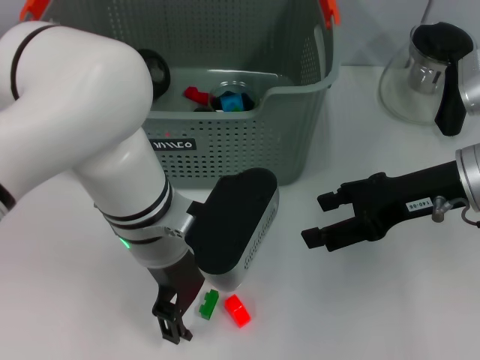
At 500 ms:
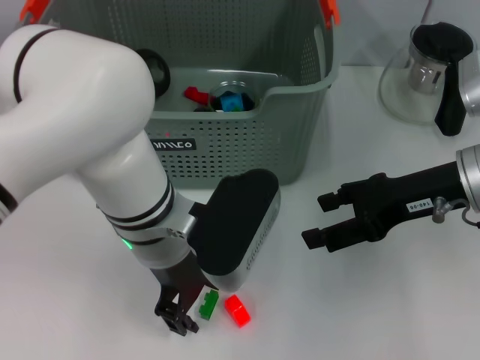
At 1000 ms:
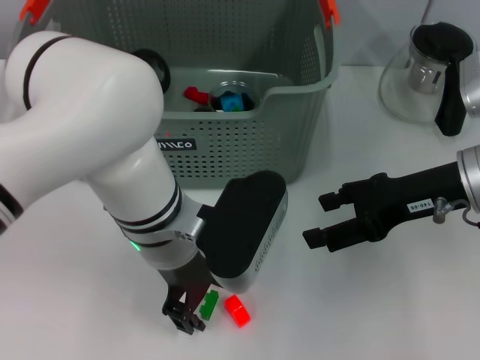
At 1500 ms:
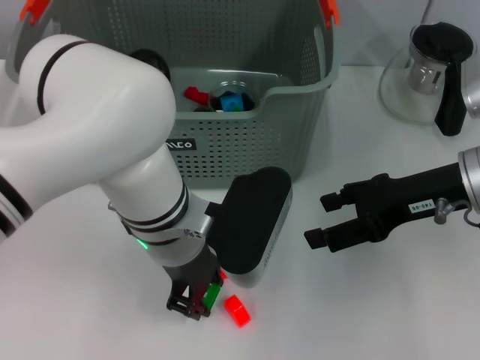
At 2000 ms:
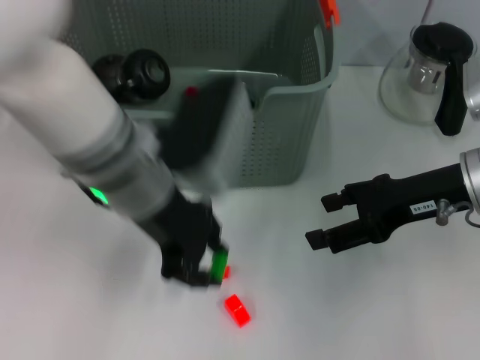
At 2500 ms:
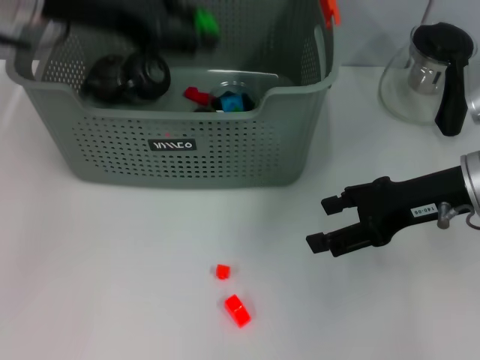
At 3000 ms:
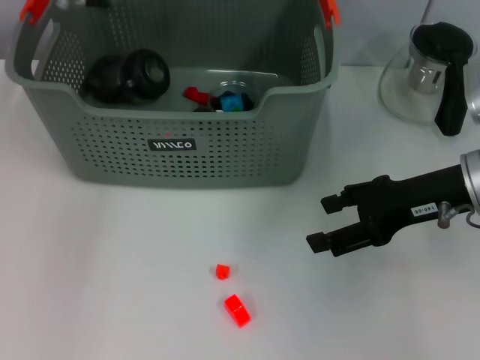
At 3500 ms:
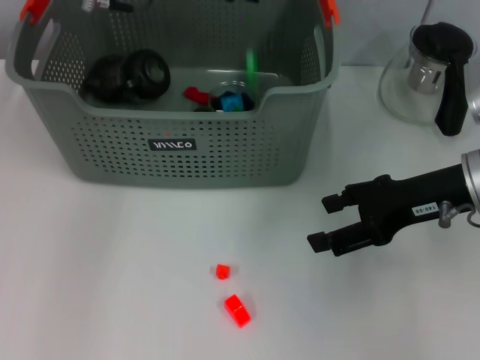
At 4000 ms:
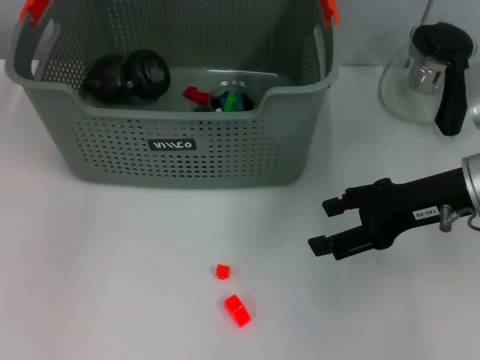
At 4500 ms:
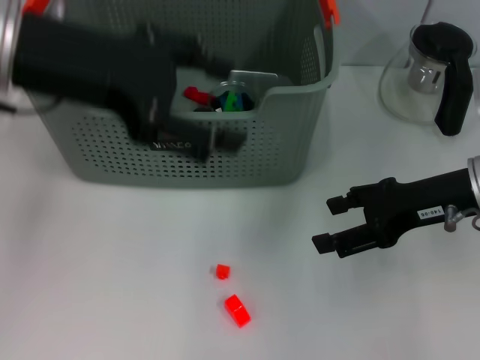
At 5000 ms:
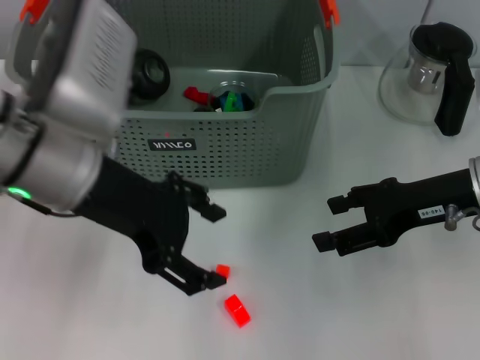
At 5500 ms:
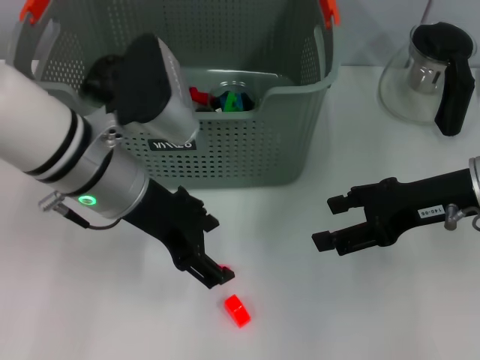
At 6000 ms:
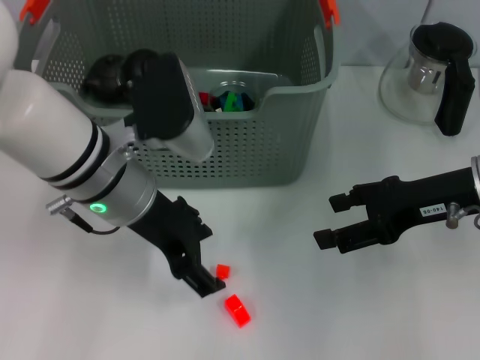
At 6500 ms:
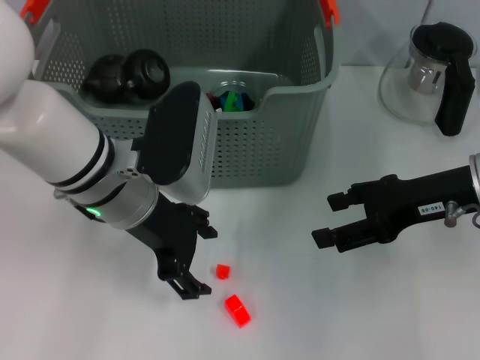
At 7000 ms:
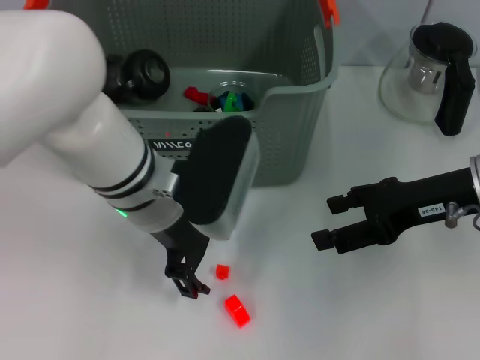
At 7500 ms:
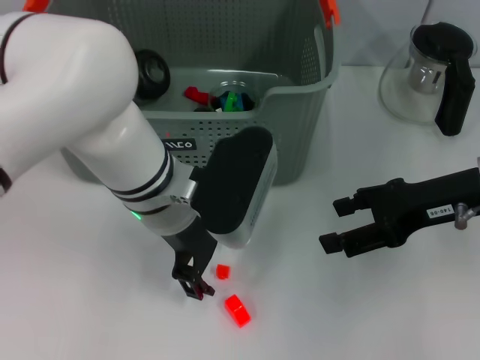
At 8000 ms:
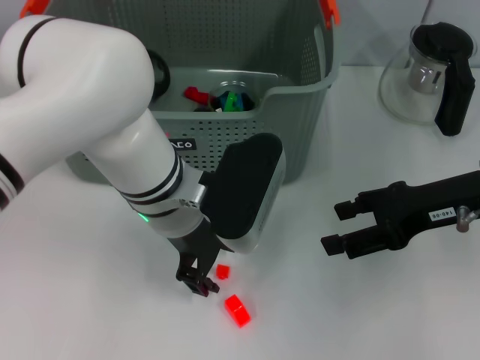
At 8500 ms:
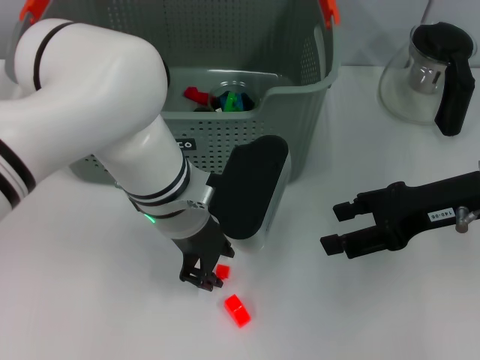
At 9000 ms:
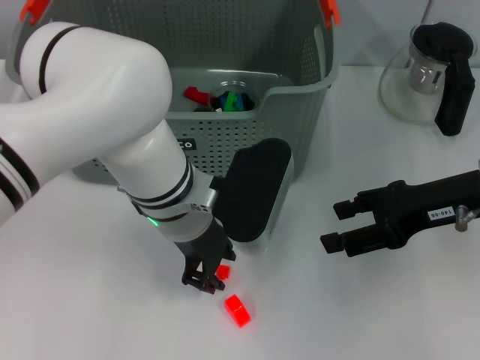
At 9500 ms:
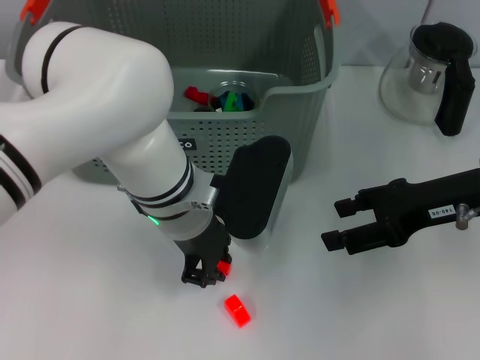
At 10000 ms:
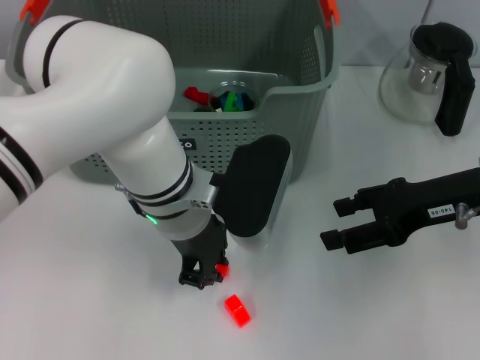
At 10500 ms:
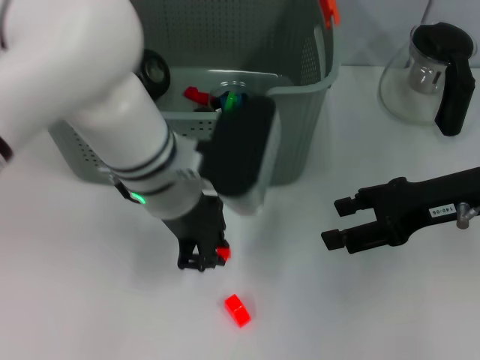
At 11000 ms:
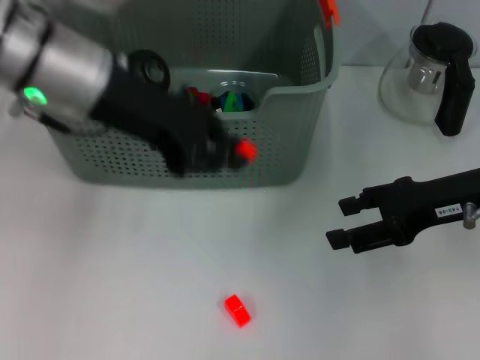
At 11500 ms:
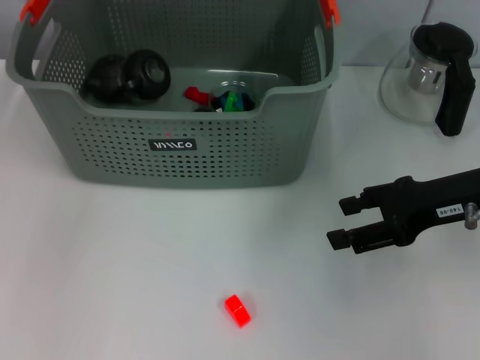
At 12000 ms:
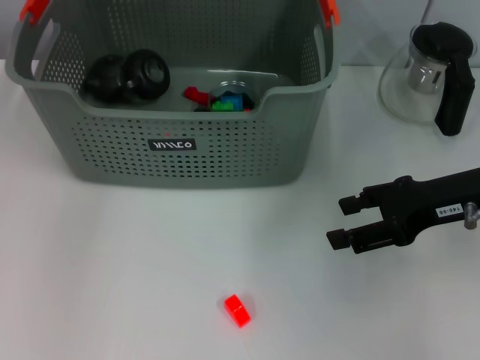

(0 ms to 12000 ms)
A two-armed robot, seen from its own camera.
Task of the whole recording: pick up the teacup on the table and place it into the storage bin, pick up the block on the table and place it into the storage bin.
Step, 2000 ms - 3500 ms: Place the green block in the storage box with left gripper.
Step, 4000 ms - 10000 ms: Grasp the orange block with left gripper.
Step, 10500 ms - 12000 ms: Place the orange block in the storage box with left gripper.
0 ms - 2000 ms: The left gripper goes approximately 5 cm upward, and closes its fingers.
2000 ms - 4000 ms: The left gripper goes approximately 15 cm upward, forward and to the left, and opens up.
4000 ms - 6000 ms: The left gripper shifts some 20 cm downward and backward.
6000 ms - 8000 ms: The left gripper shifts roughly 5 cm to the right.
8000 ms - 10000 ms: The left gripper closes.
10000 ms - 12000 ms: The left gripper travels upward, forward and to the left by approximately 25 cm.

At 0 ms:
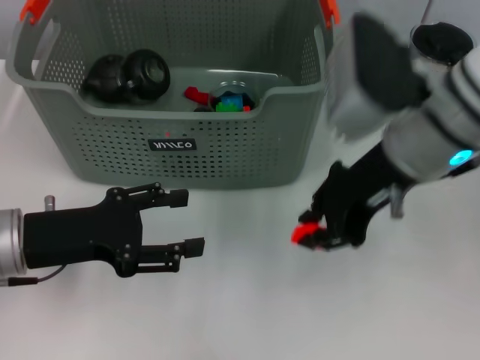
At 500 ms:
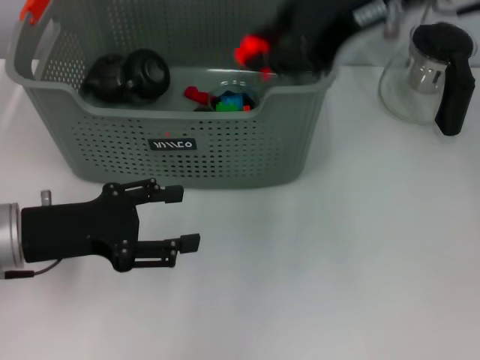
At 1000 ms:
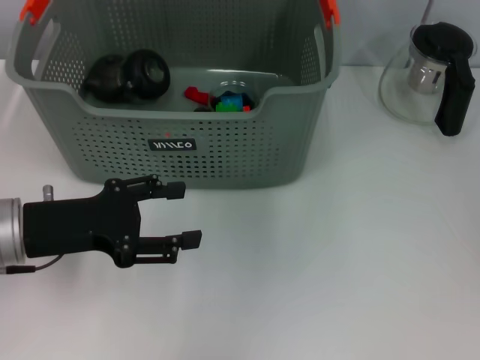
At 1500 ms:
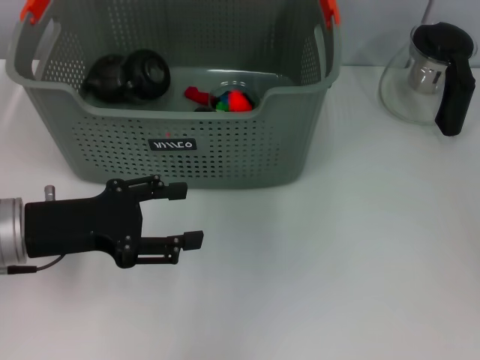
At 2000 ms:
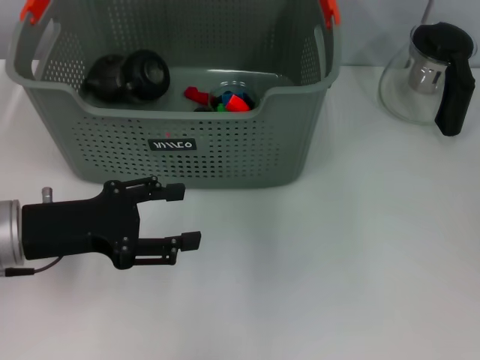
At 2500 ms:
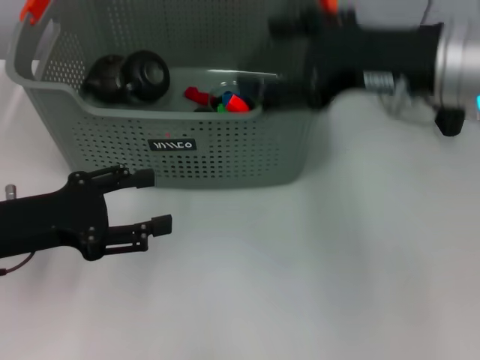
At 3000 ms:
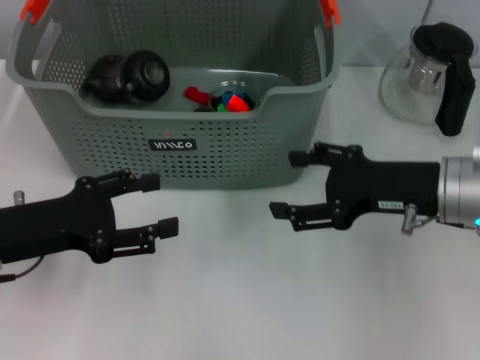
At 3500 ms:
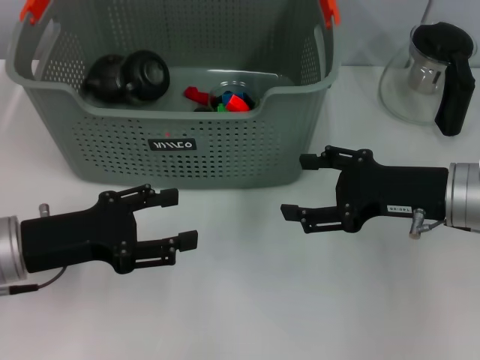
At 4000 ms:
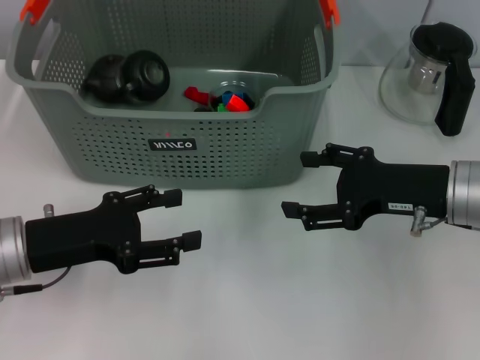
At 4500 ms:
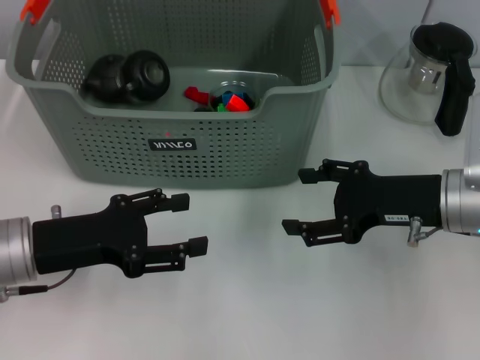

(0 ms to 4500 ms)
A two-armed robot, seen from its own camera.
Task of the whole recording: pick up the teacup on the table and place it into the storage bin, pick up the block on the table and place it into the storage bin.
Step, 0 ms - 1500 ms: Place the orange block in the storage box with right gripper.
0 ms - 2000 ms: The right gripper shifts approximately 10 cm forward and upward, and opens up.
2000 ms - 4500 ms: The right gripper shifts approximately 25 cm downward, backward and to the right.
